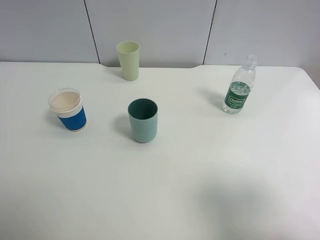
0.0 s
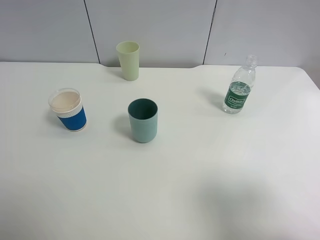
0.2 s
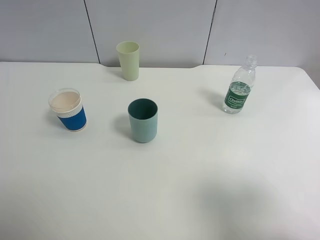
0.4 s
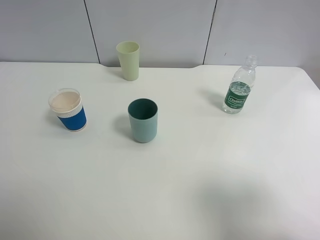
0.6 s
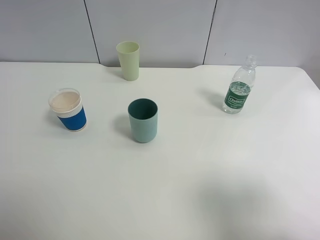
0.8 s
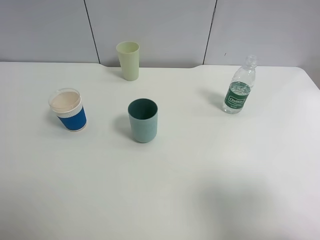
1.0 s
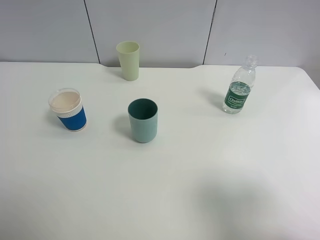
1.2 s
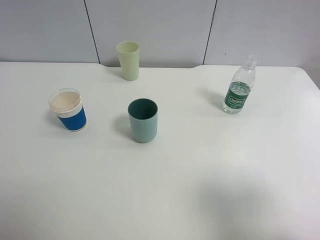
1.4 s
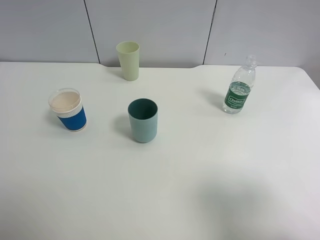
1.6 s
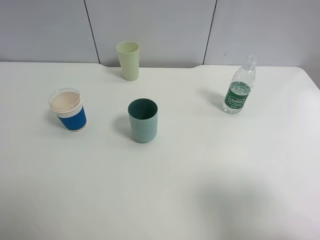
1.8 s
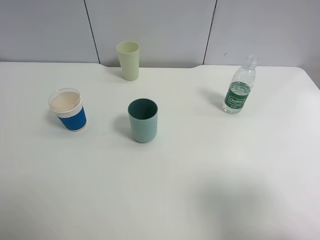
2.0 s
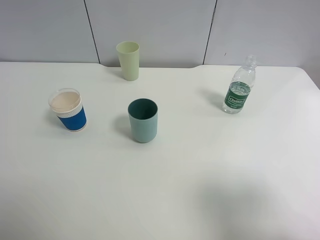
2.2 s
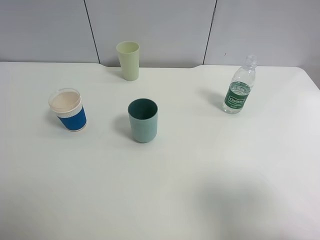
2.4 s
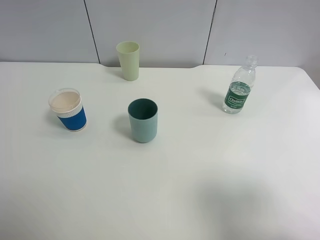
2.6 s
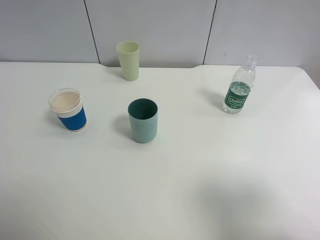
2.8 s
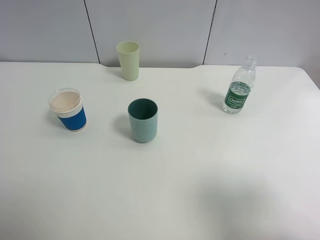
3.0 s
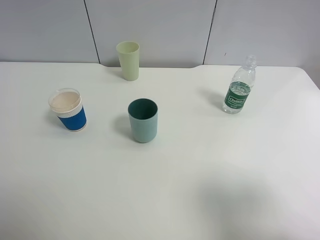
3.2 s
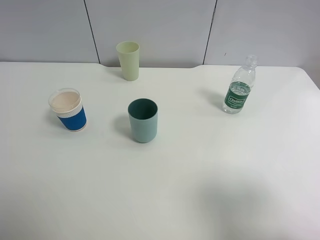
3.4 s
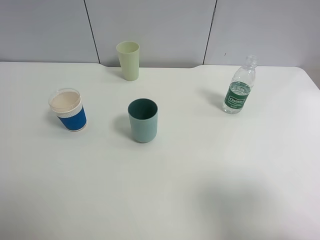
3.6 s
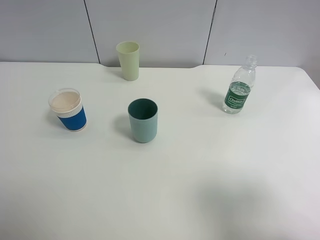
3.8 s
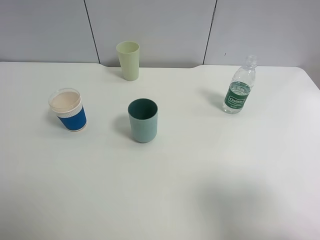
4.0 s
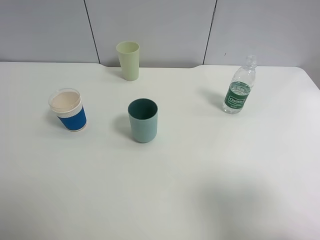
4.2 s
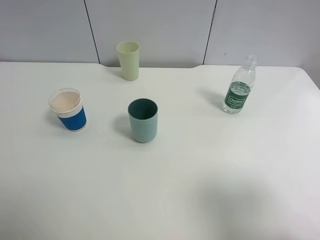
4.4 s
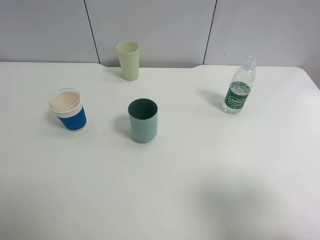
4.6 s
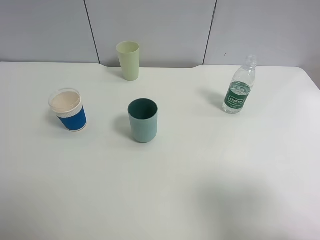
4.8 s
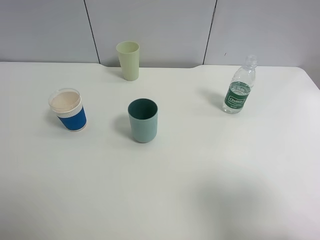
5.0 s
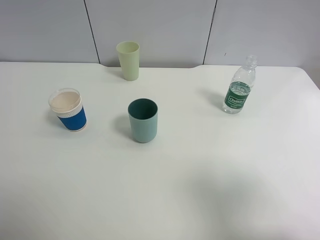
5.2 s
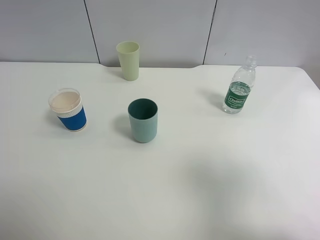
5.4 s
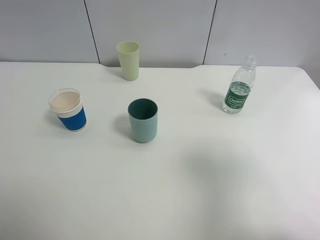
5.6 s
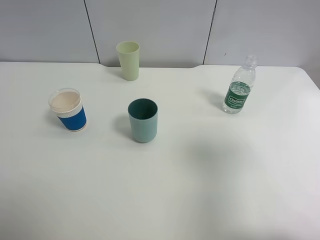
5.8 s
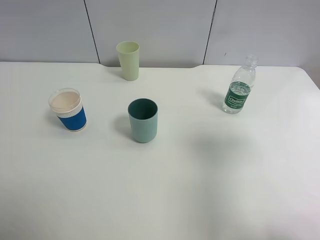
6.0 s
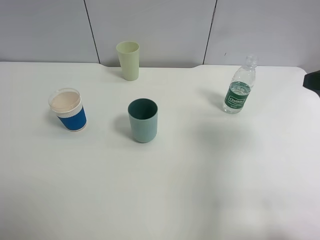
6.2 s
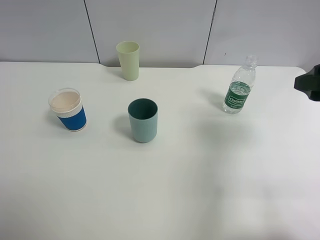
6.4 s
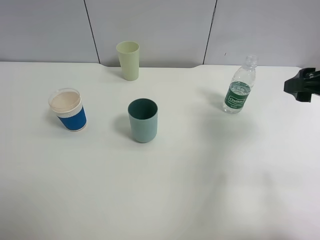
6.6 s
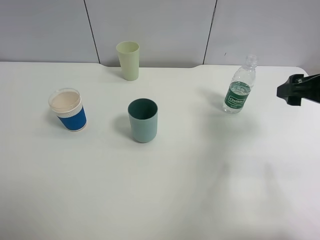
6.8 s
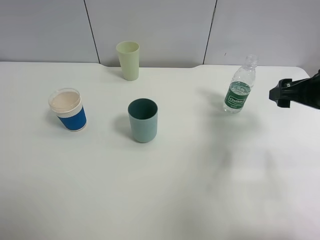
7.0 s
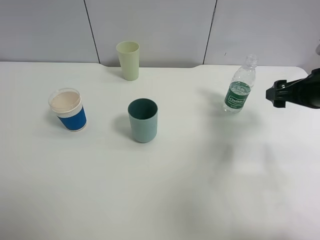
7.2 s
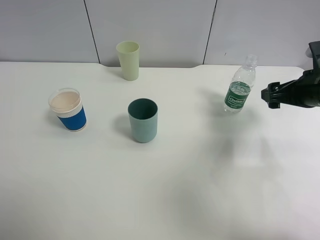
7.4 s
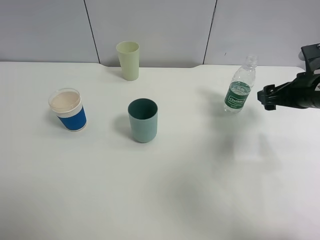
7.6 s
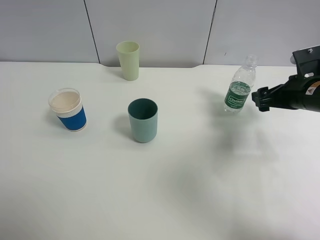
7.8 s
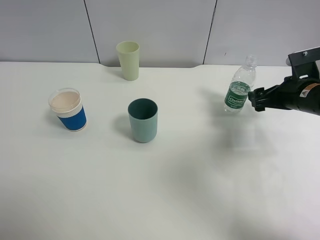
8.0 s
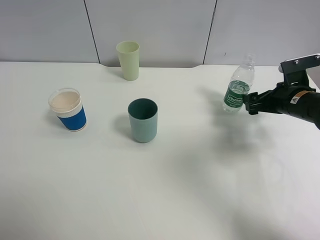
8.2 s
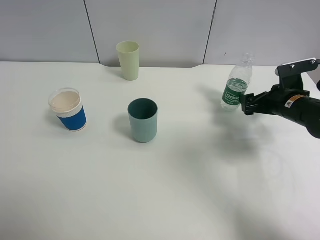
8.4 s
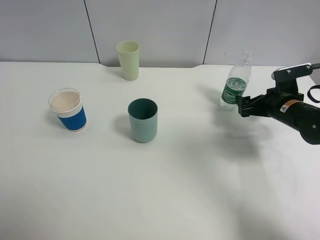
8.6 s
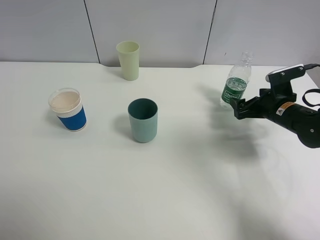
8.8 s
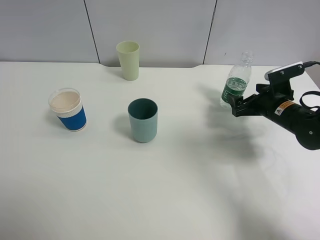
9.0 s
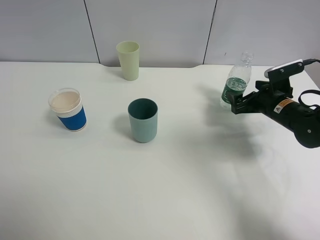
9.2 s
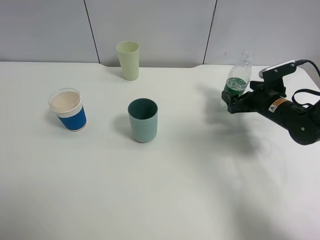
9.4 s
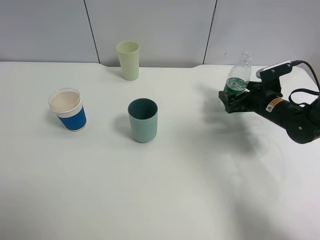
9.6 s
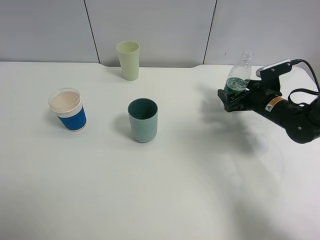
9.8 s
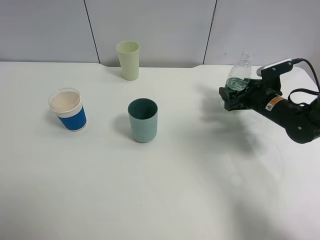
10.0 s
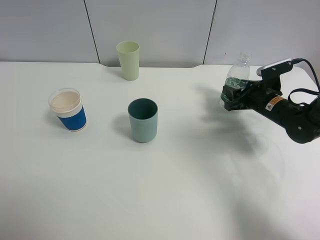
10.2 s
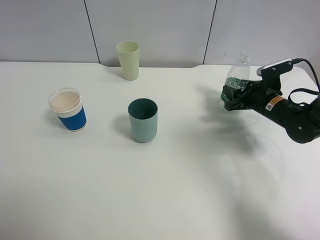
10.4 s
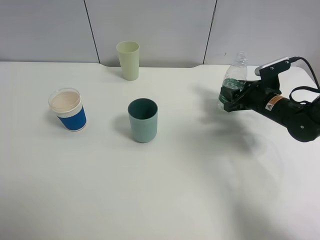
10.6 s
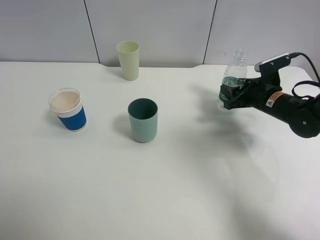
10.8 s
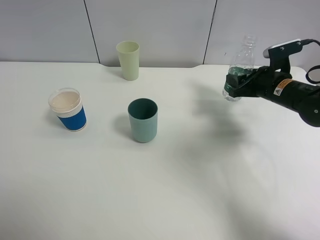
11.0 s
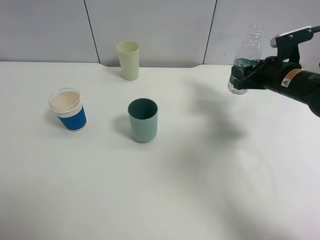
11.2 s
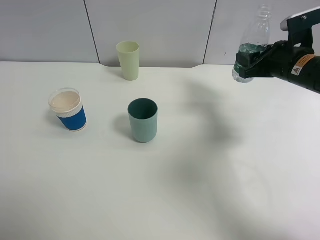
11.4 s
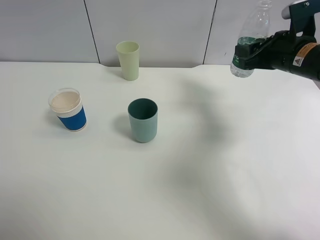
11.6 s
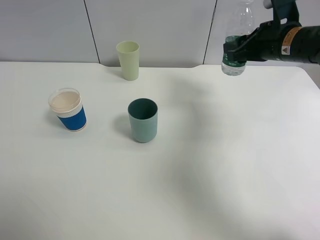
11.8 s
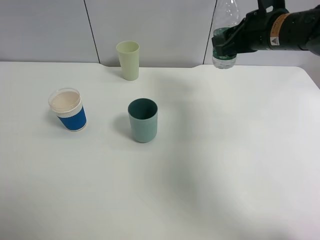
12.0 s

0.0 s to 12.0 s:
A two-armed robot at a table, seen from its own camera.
Task of the whole recording: use a clamp to hold the bottle of the drink, pour the beverage into a random cup, then clamp the cup containing the drink and pour the drink into another random cup.
Step, 0.0 to 11.0 s: Pick up the water bottle with right gripper.
0.0 to 4.4 s: Neither gripper changes place.
4.4 to 6.0 s: The right gripper moves forward, some 15 cm.
6.0 to 7.6 s: The right gripper moves forward and downward, roughly 20 cm.
7.6 to 9.0 s: The right gripper heads downward, covering some 10 cm.
9.0 to 10.4 s: The right gripper closes.
10.4 to 12.0 s: The right gripper shifts roughly 20 cm upward and to the left.

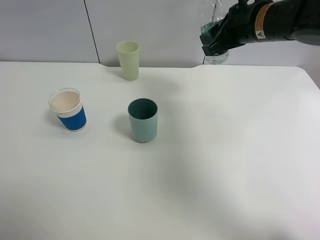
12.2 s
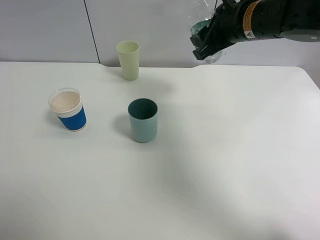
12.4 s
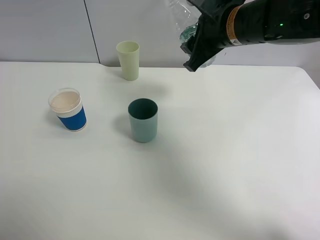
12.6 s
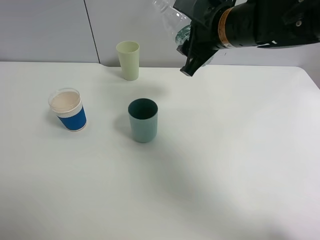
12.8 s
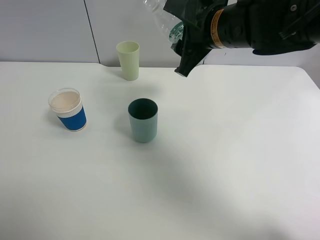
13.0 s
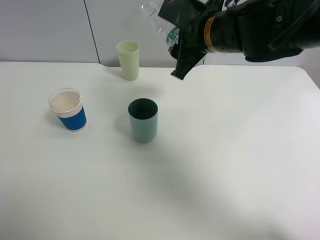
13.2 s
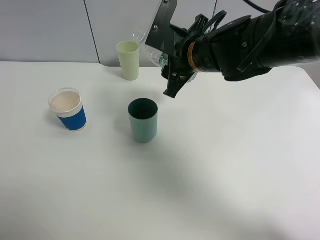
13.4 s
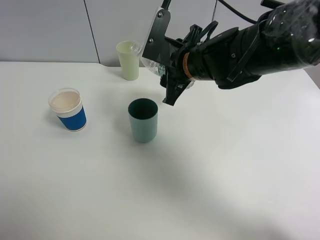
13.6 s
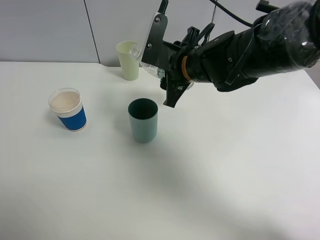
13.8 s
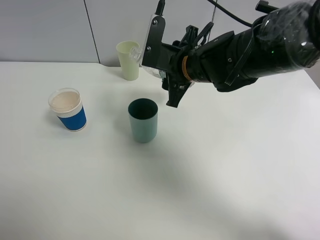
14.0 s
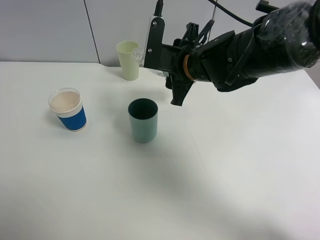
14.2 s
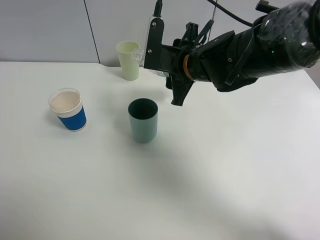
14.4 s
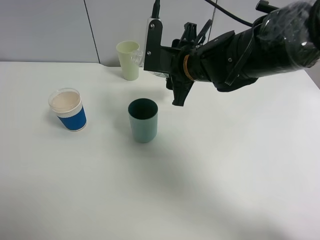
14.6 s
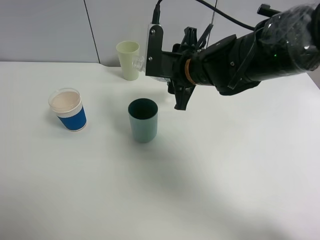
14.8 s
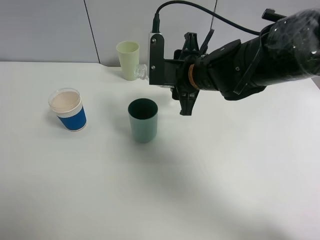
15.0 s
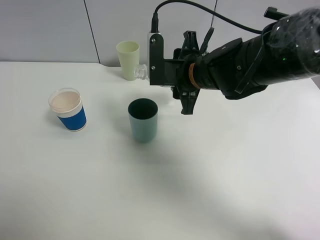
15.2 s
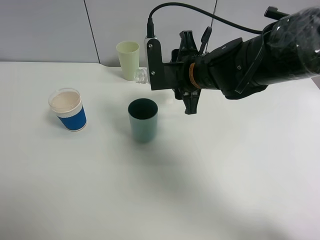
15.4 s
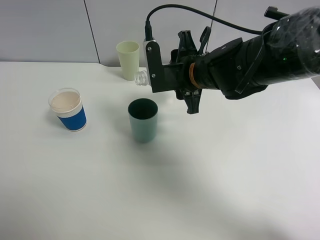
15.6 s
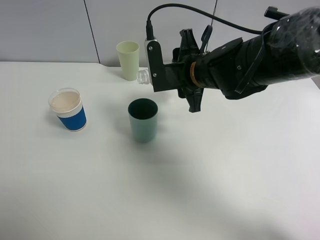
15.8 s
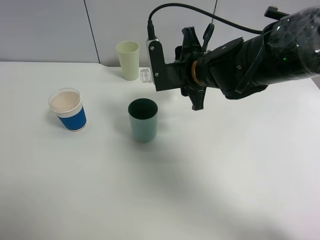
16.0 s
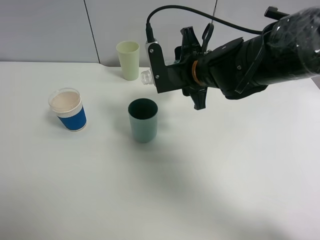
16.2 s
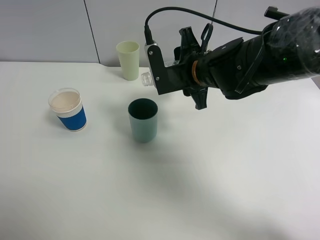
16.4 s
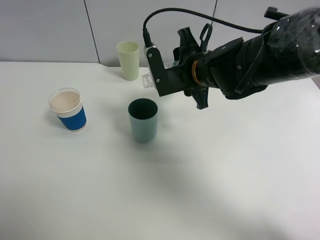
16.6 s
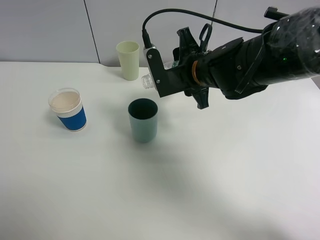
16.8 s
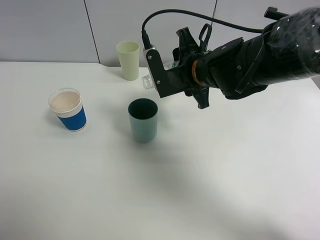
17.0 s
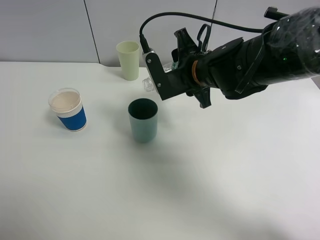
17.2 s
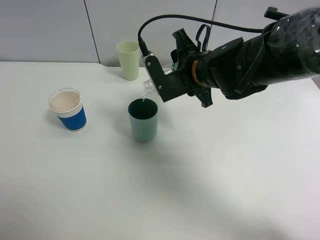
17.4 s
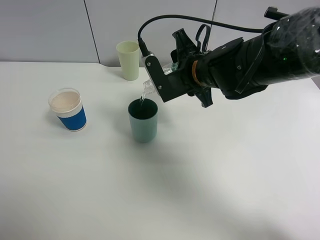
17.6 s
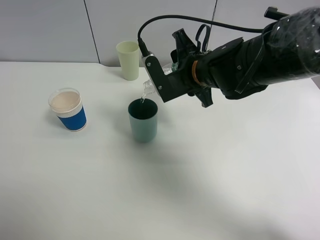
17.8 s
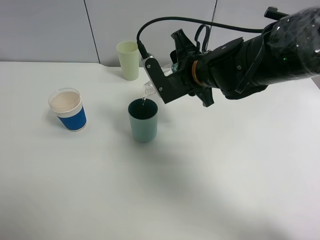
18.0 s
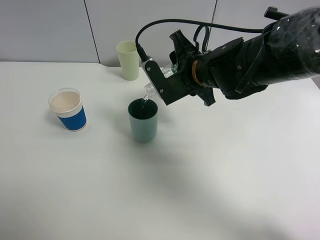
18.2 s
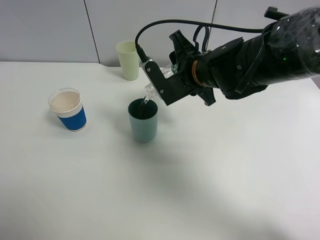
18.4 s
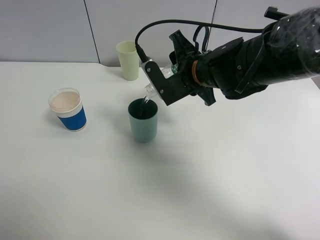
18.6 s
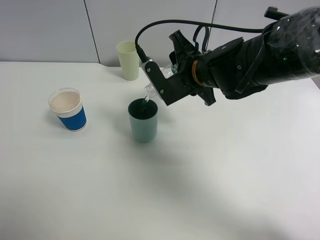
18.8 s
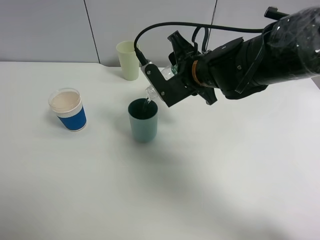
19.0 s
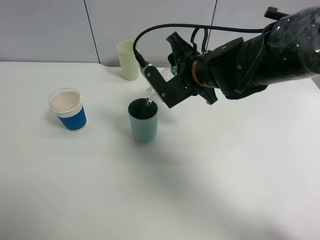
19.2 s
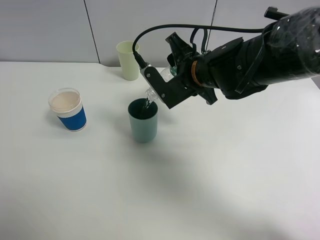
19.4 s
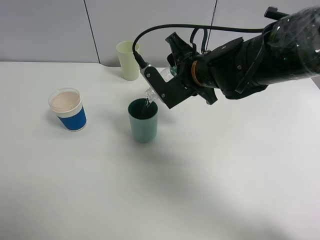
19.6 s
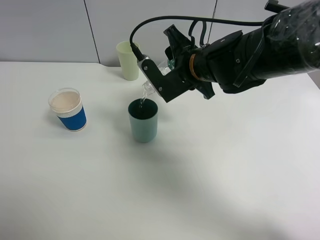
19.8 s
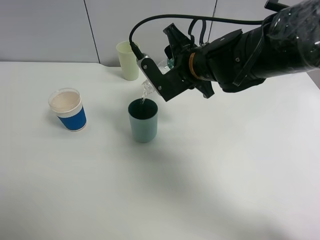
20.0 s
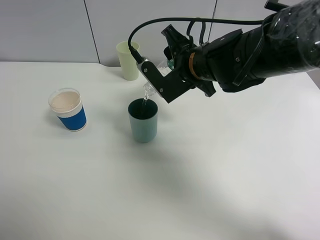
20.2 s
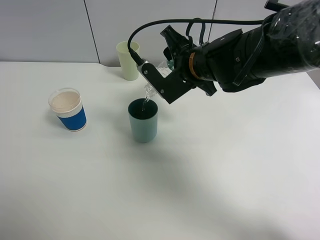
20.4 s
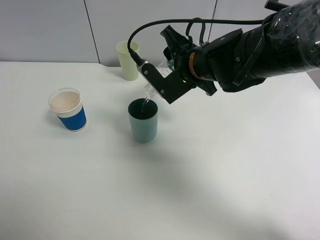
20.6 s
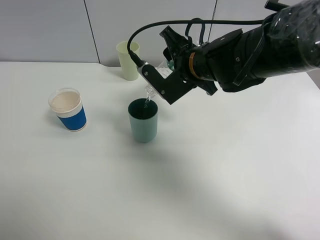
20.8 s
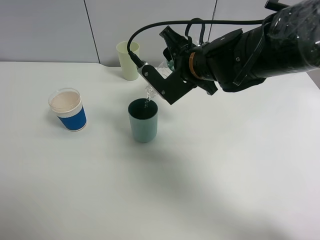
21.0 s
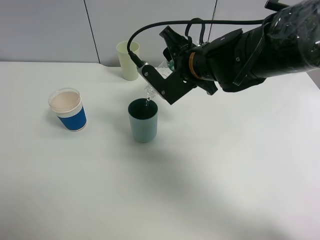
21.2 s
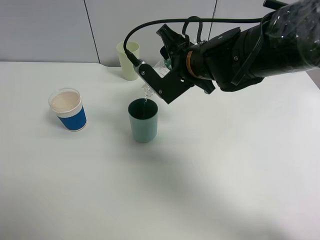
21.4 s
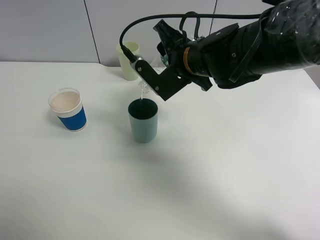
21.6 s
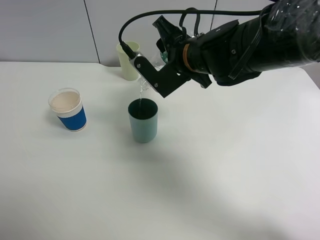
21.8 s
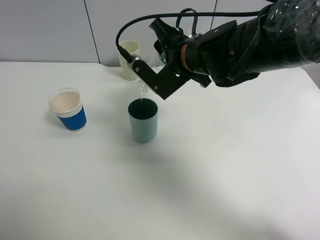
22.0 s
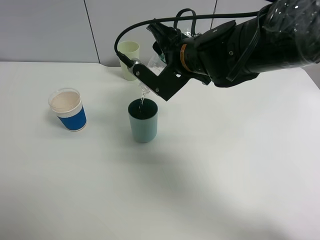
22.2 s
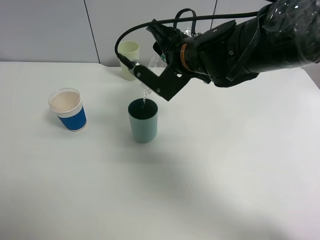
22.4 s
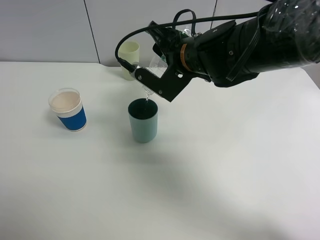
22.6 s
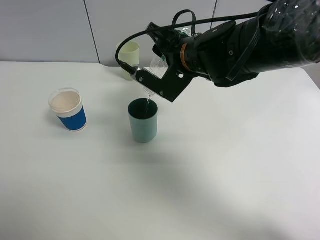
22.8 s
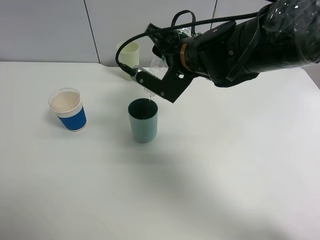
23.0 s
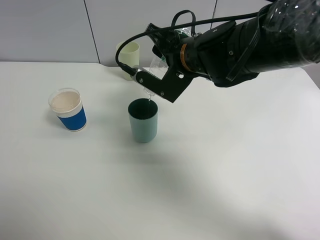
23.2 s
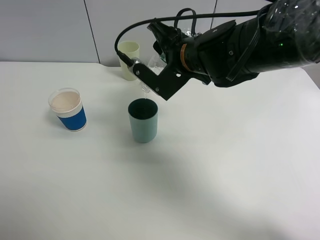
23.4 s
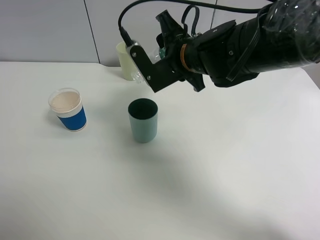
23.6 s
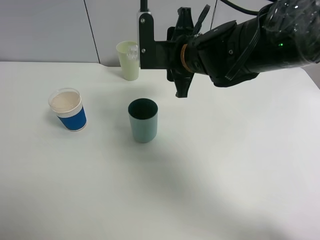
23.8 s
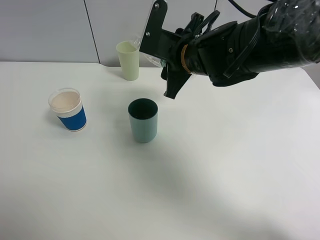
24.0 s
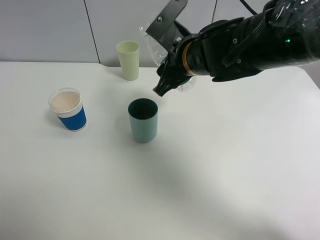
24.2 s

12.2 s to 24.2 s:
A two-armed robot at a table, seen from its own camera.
Task of the whole recording: use a clamp to hold the bottle of the drink, pour the beverage into a random cup, then clamp the cup containing the drink and pour the drink into another random cup.
12.2 to 13.8 s: The right gripper heads to the left and downward, covering roughly 15 cm.
13.8 to 15.2 s: The grippers stay close to where they were, moving slightly.
15.2 to 16.6 s: There are only small adjustments of the grippers.
16.6 to 19.8 s: The grippers stay close to where they were, moving slightly.
19.8 to 21.2 s: There are only small adjustments of the grippers.
21.2 to 22.6 s: The grippers make only small movements.
